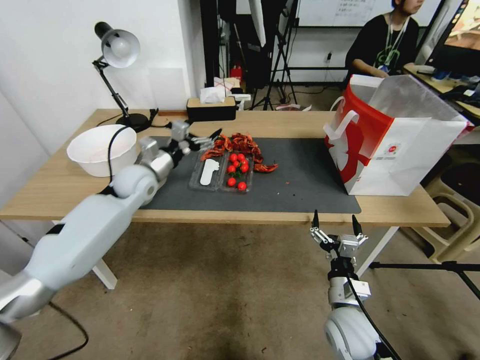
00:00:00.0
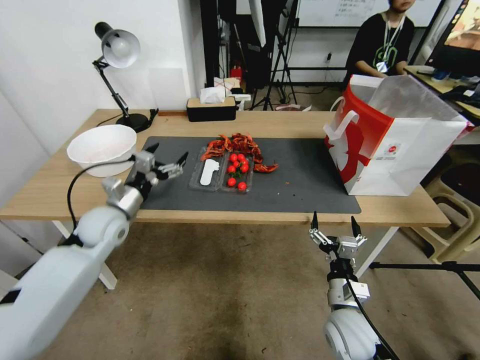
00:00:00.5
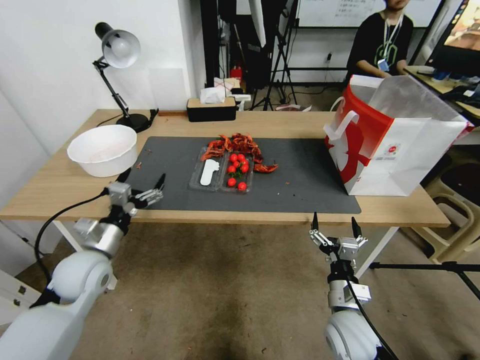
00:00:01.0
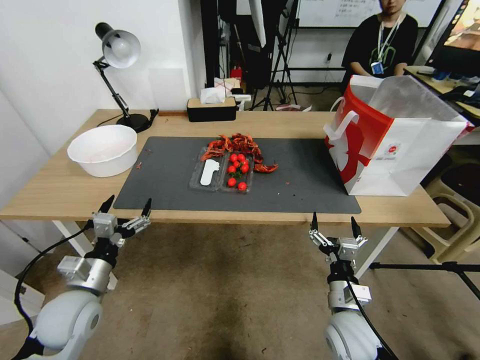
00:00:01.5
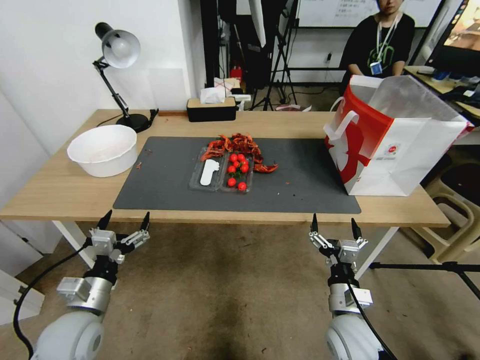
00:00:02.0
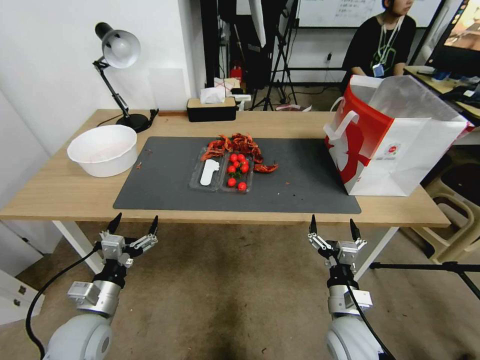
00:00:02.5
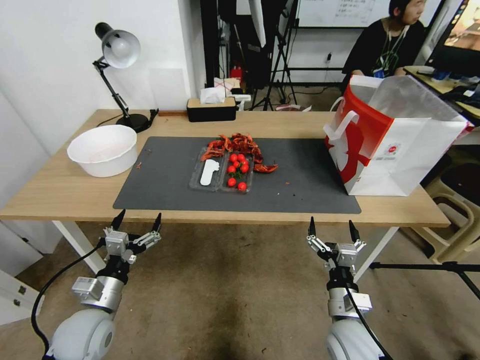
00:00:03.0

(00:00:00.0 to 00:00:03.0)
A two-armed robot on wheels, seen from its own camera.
00:00:00.0 - 00:00:01.5: The left gripper moves backward, some 30 cm.
00:00:01.5 - 00:00:03.0: The grippers make only small movements.
